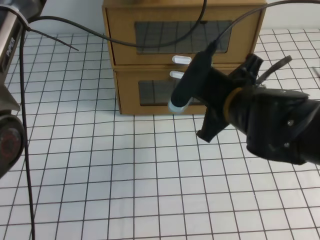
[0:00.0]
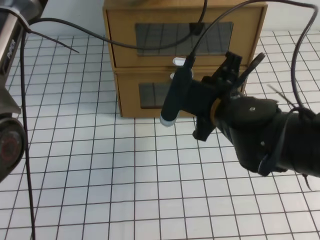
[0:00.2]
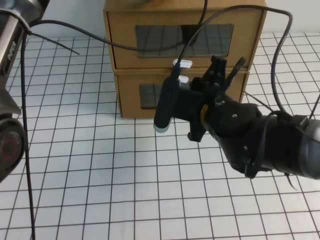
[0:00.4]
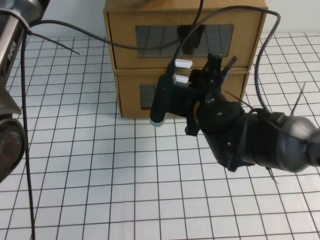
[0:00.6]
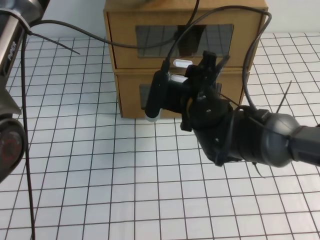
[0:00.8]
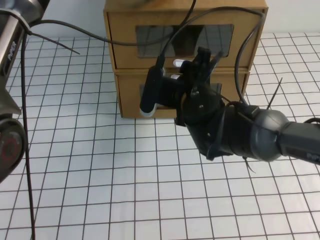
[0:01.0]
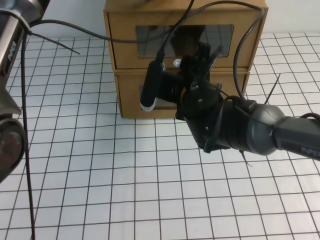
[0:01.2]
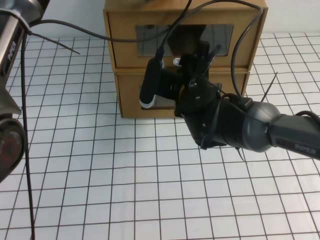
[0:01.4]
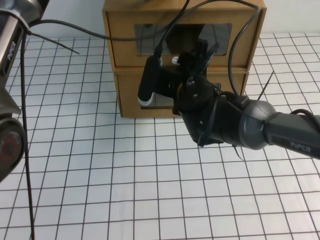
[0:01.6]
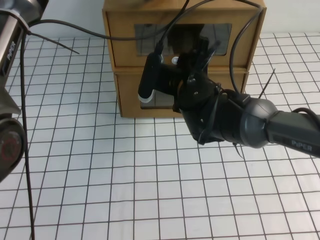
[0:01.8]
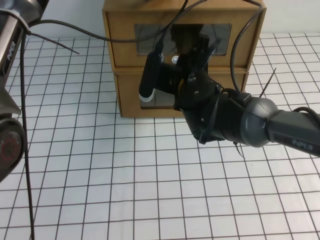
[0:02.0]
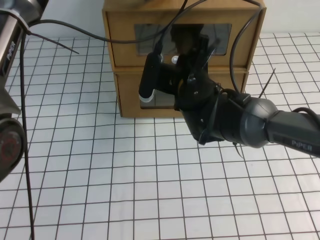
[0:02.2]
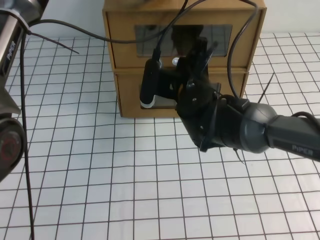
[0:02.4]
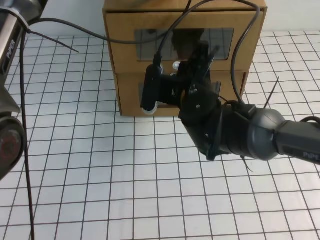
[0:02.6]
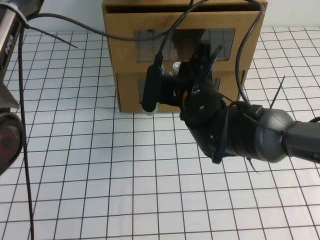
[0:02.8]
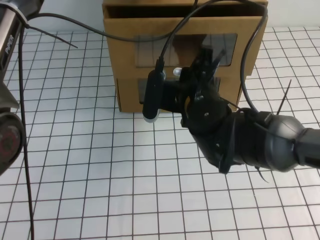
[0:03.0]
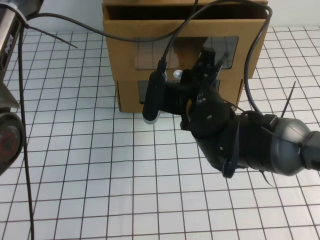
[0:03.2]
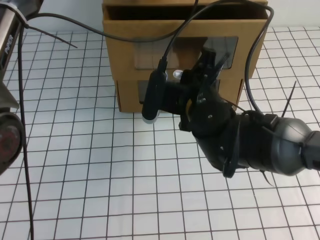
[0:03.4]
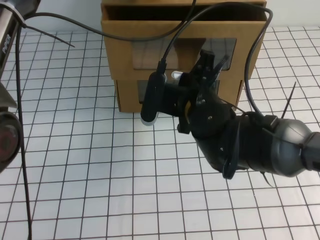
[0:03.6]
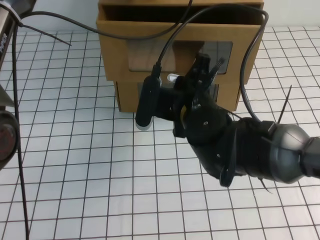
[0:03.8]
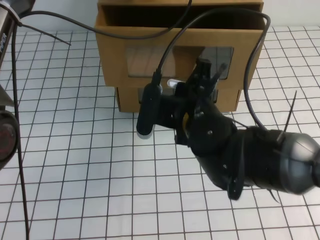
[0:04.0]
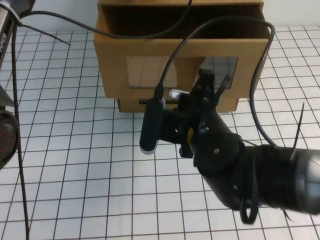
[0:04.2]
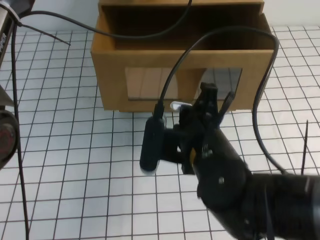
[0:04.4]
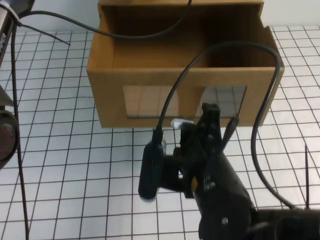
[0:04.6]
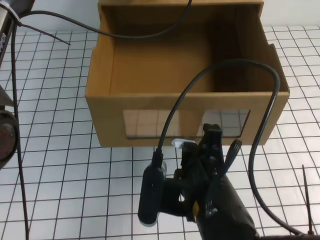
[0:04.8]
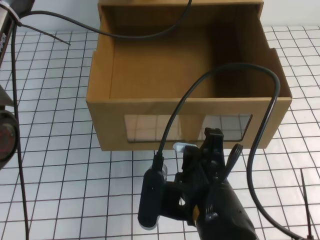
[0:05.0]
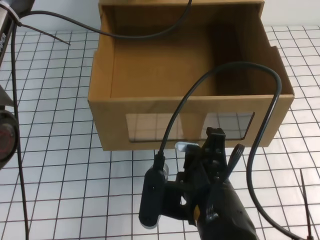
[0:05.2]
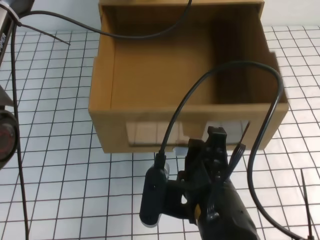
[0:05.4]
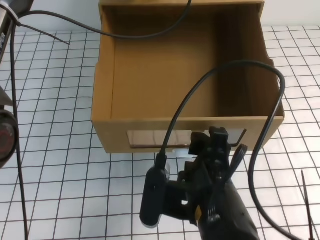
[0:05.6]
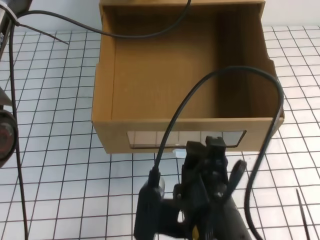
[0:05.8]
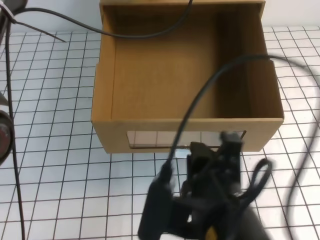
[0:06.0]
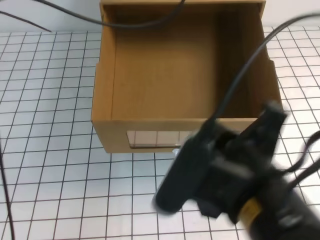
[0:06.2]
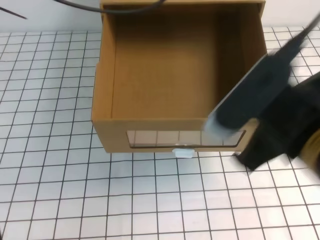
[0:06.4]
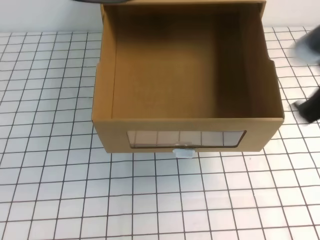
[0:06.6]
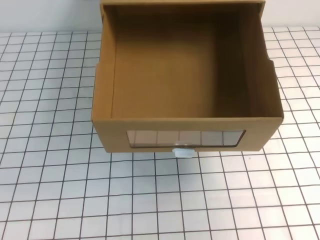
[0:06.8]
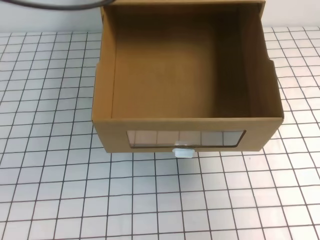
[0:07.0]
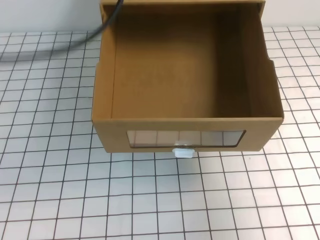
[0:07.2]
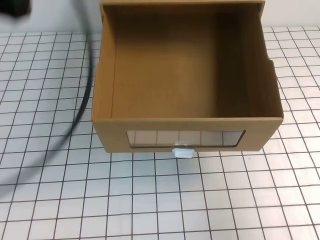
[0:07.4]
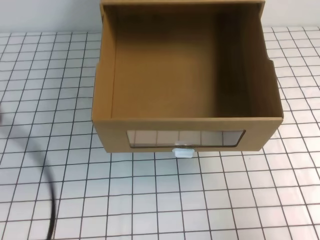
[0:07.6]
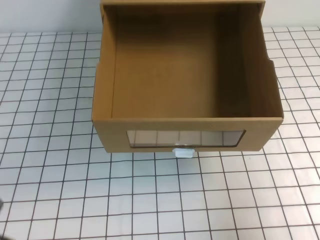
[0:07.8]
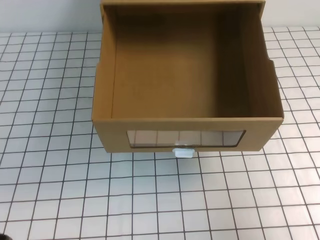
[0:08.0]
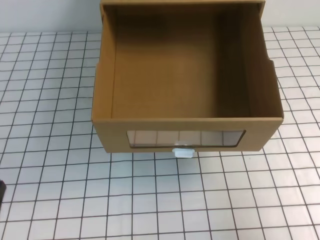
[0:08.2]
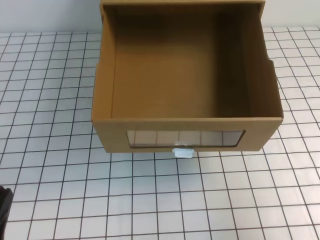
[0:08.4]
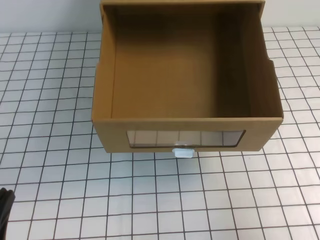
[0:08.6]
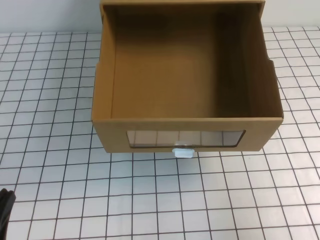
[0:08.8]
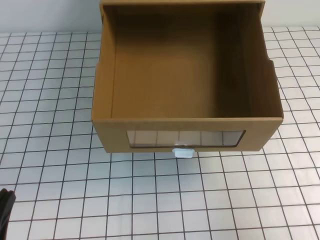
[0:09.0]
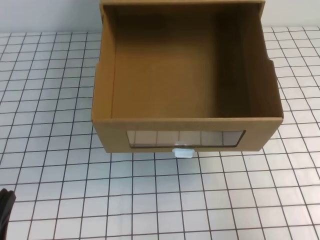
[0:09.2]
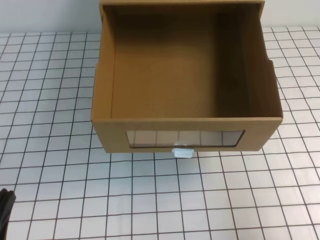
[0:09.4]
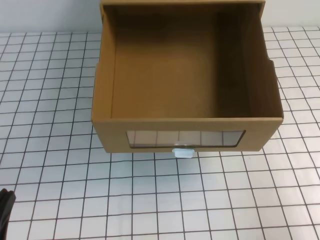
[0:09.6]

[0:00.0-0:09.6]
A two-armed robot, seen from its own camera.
Task of the whole recording: open the shoebox on the white tablecloth.
0:00.0 to 0:01.6: The right gripper shifts roughly 10 cm forward and to the left, and opens.
0:01.6 to 0:03.2: The right gripper moves backward, some 5 cm, and closes up.
0:03.2 to 0:04.8: The right gripper heads backward, covering about 15 cm.
0:04.8 to 0:06.4: The right gripper shifts roughly 15 cm upward and to the right, and opens, then closes again, while the left gripper shifts roughly 10 cm upward and backward.
0:06.4 to 0:08.0: The left gripper travels backward, downward and to the left by some 40 cm, while the right gripper heads to the right and downward, covering about 15 cm.
0:08.0 to 0:09.6: The left gripper moves downward, some 5 cm. Meanwhile the right gripper shifts by approximately 5 cm.

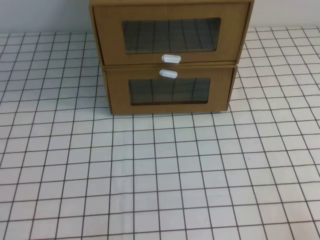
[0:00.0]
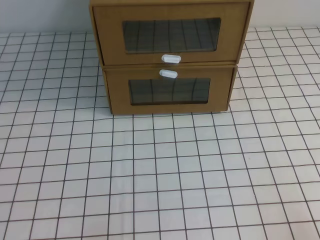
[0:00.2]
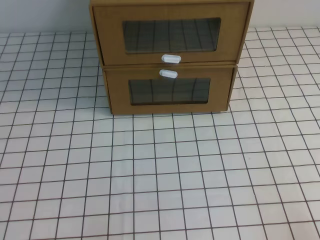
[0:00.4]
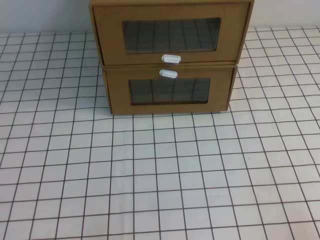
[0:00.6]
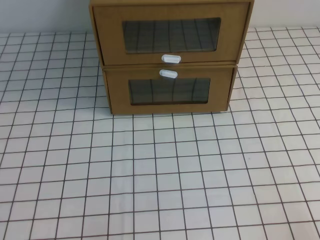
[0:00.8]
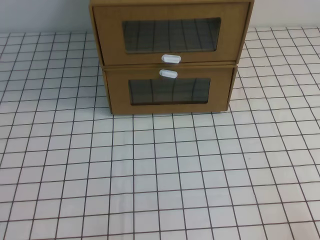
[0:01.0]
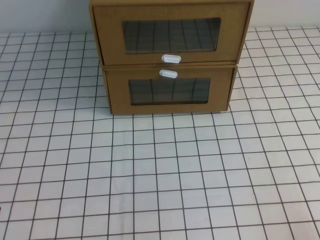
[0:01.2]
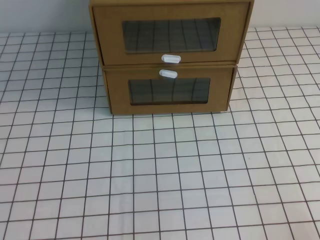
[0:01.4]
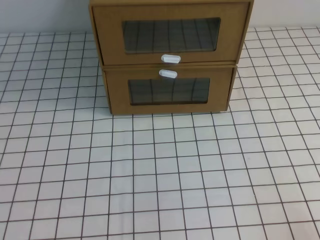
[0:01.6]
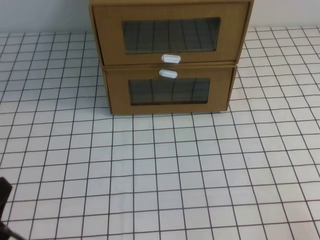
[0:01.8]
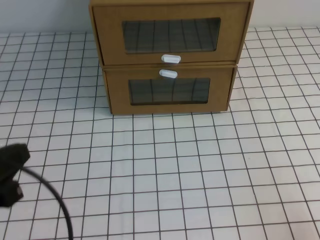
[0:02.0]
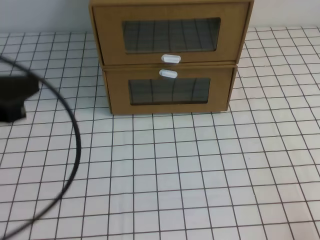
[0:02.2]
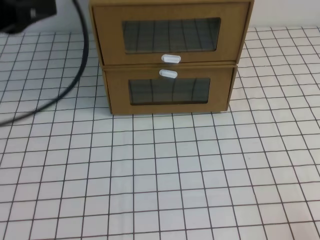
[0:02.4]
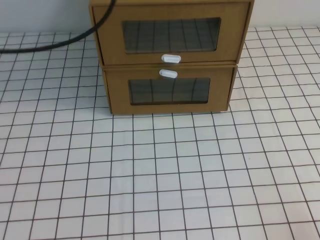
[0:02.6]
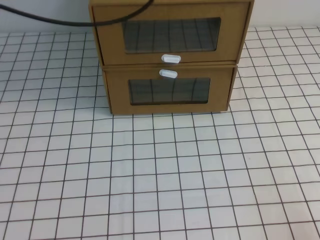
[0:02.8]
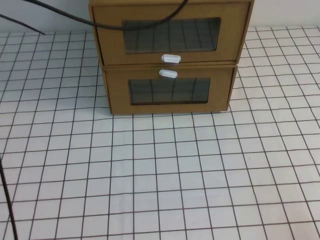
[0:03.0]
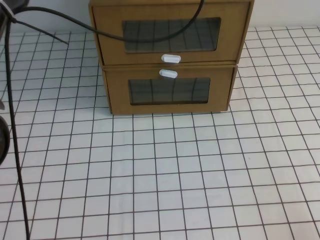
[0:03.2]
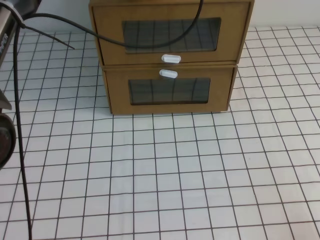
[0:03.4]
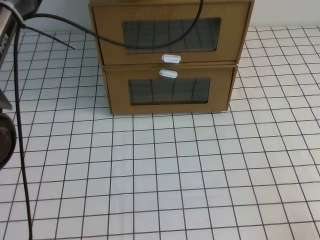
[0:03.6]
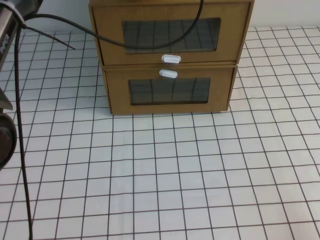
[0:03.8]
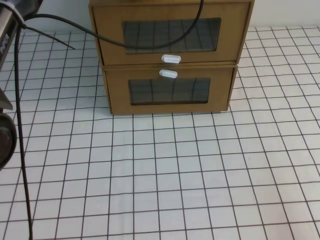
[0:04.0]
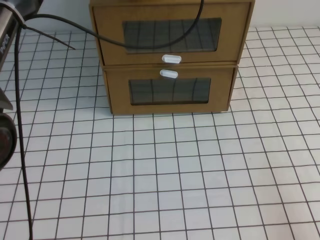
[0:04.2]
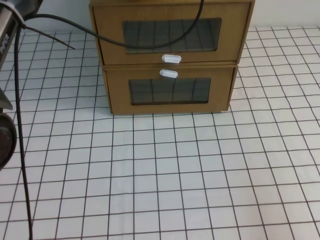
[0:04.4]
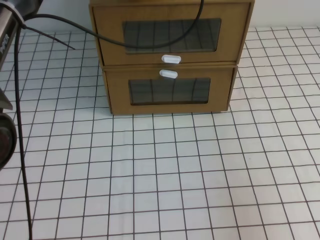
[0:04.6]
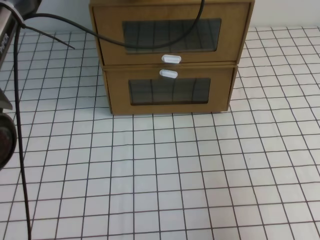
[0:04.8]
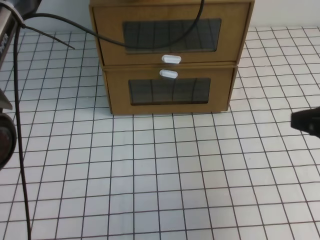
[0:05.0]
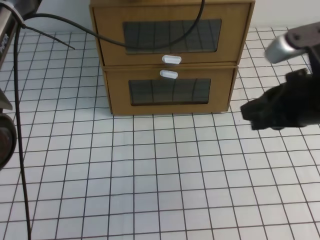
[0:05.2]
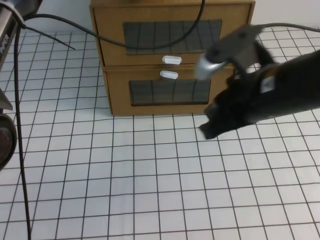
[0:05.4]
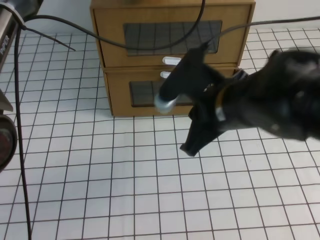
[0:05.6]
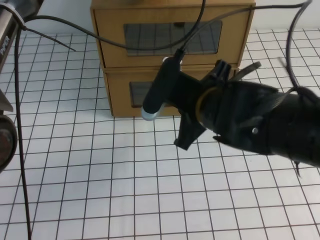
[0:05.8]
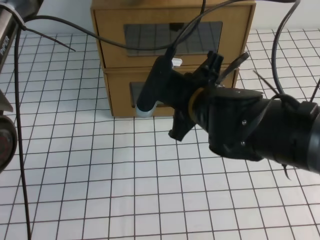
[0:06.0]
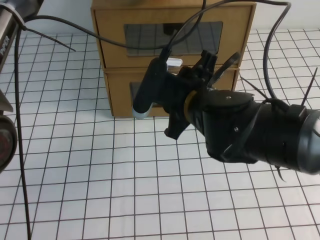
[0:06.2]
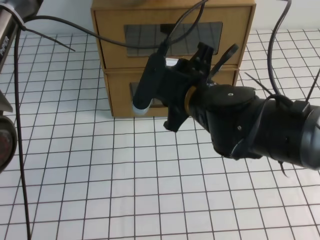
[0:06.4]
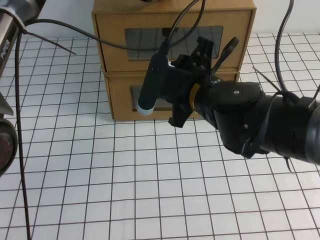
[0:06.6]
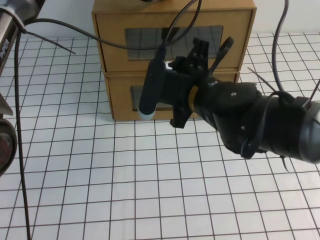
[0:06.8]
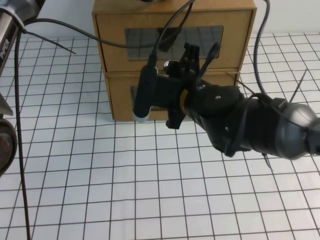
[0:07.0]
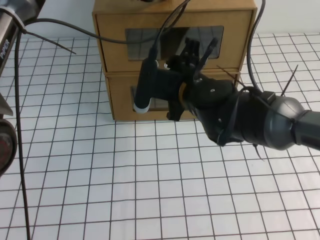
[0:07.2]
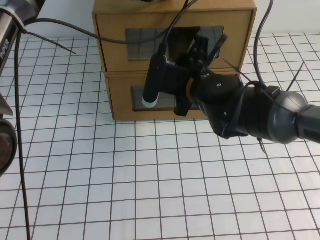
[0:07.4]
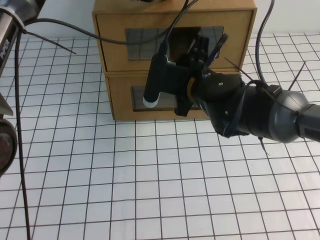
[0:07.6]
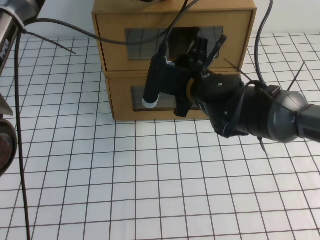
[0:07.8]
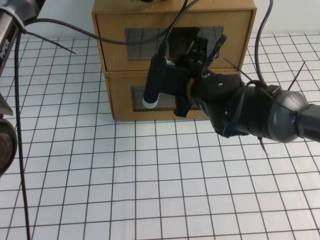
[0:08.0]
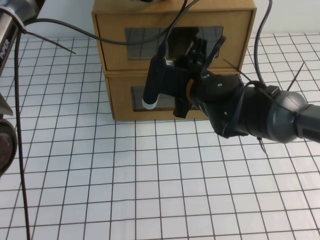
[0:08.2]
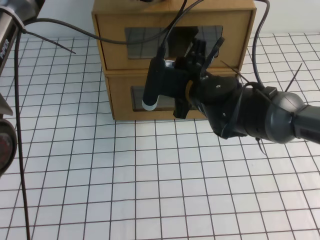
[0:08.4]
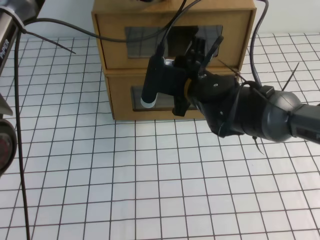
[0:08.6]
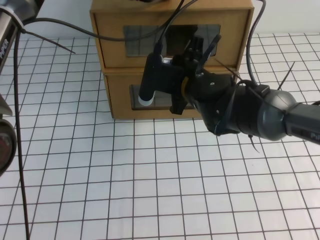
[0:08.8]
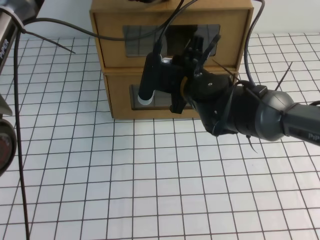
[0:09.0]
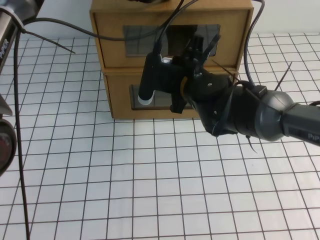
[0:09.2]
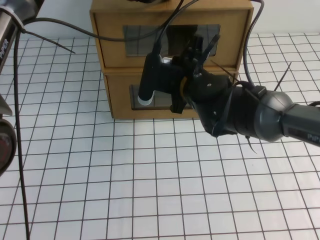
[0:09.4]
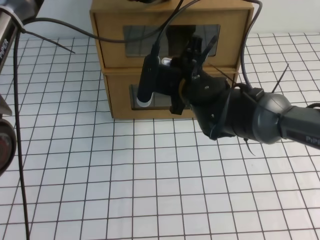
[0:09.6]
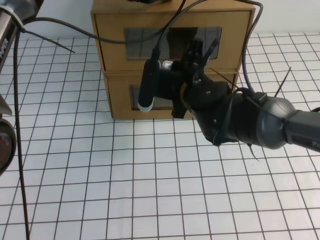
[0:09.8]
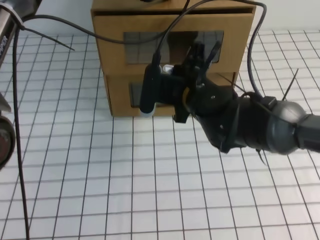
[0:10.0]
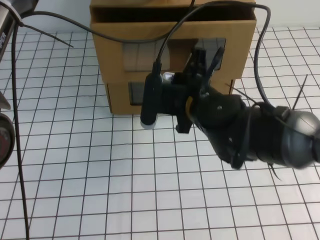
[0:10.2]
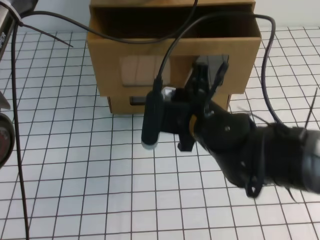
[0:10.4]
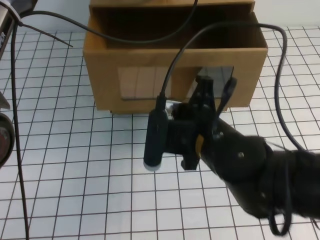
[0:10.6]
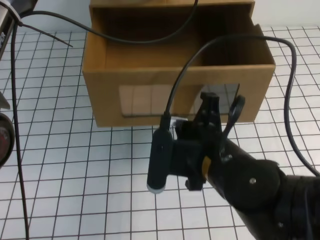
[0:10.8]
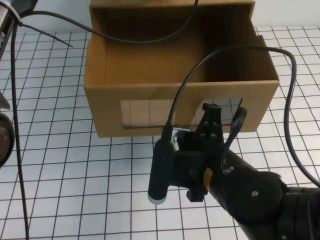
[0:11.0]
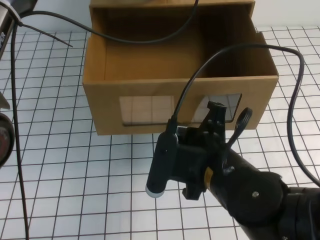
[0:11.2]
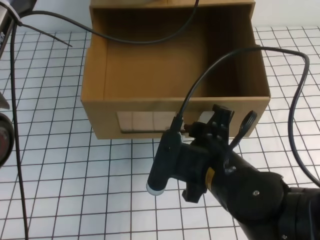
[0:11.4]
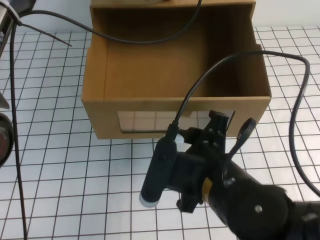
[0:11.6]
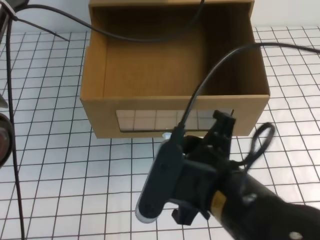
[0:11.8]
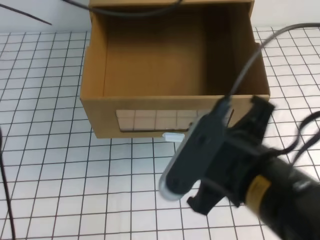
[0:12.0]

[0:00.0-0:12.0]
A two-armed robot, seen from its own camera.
Task of the whole recording: open the shoebox on the white tablecloth.
0:01.6 to 0:03.0: The left gripper is displaced forward, upward and to the right by roughly 50 cm.
0:03.0 to 0:04.4: The left gripper goes roughly 5 cm downward. The right gripper moves upward, approximately 5 cm.
0:04.4 to 0:06.0: The right gripper is displaced to the left and forward by roughly 35 cm, and opens its fingers.
0:06.0 to 0:07.6: The right gripper goes roughly 10 cm forward, and opens.
0:07.6 to 0:09.0: The right gripper closes its fingers.
0:09.0 to 0:10.4: The right gripper heads backward, covering roughly 10 cm.
0:10.4 to 0:12.0: The left gripper goes about 5 cm upward. The right gripper heads backward and upward, covering approximately 15 cm, and opens, then closes once more.
